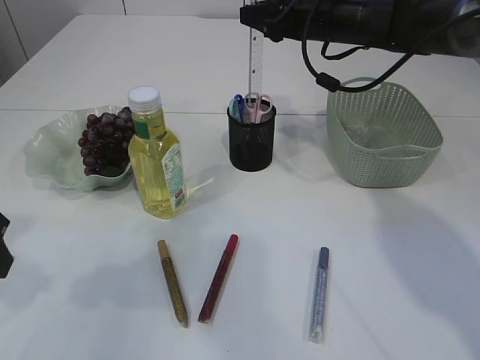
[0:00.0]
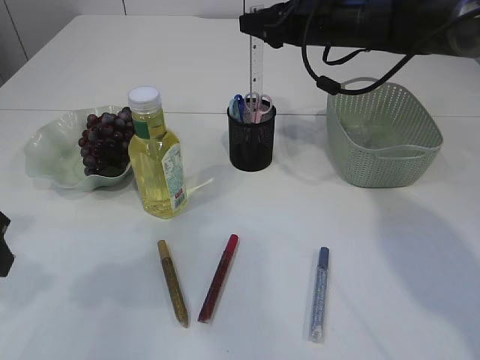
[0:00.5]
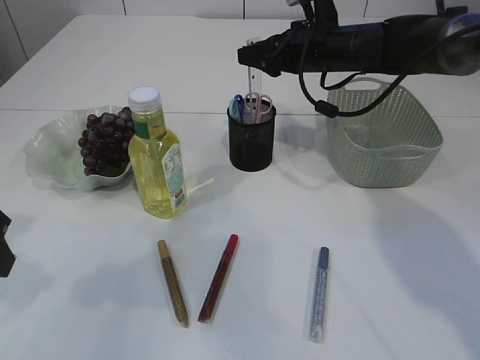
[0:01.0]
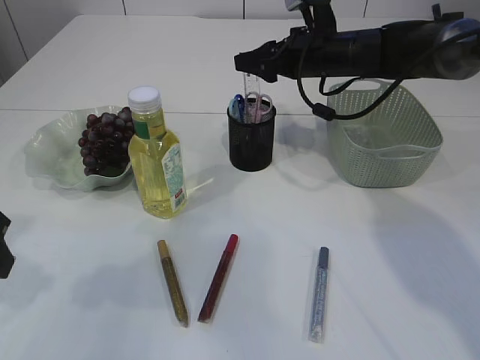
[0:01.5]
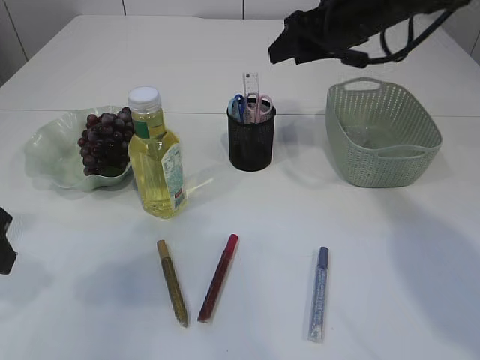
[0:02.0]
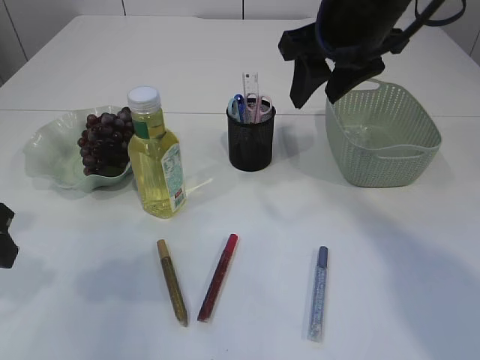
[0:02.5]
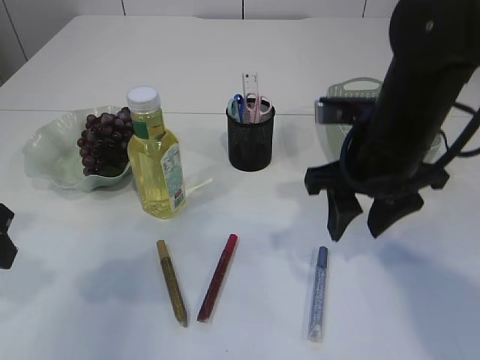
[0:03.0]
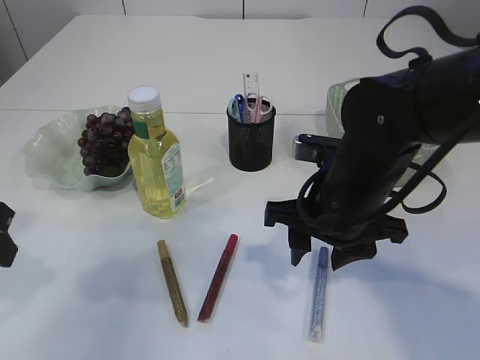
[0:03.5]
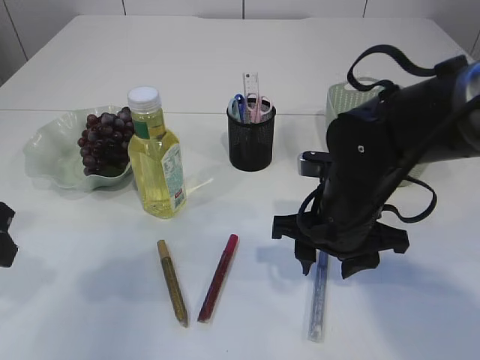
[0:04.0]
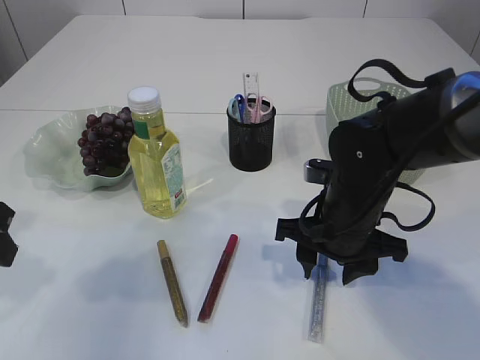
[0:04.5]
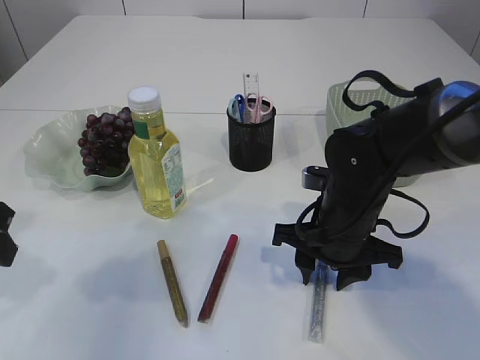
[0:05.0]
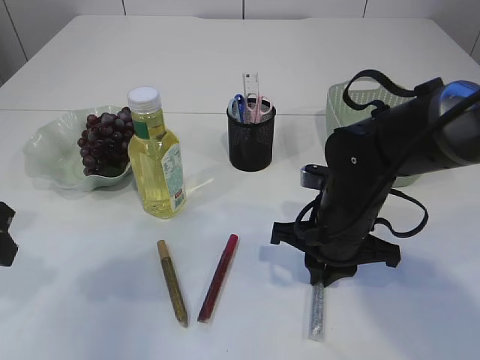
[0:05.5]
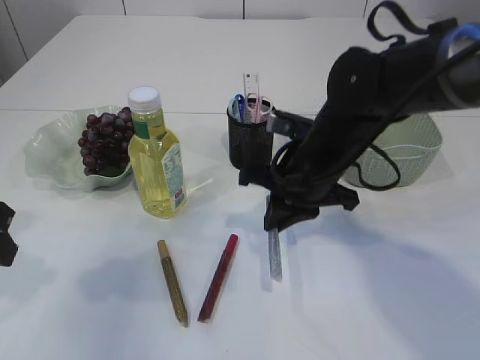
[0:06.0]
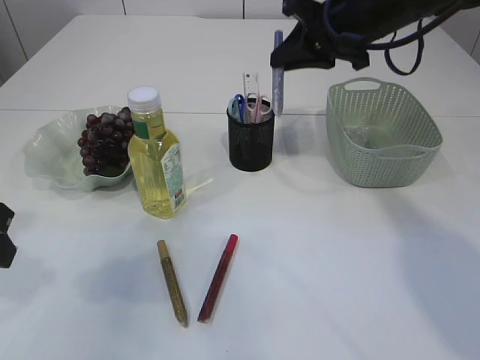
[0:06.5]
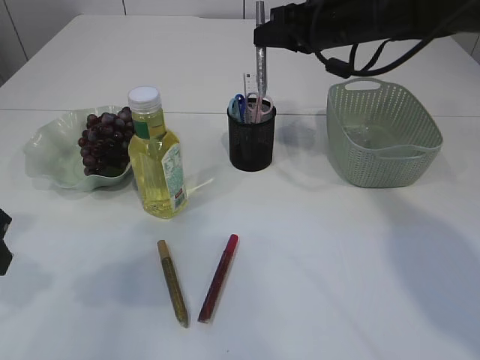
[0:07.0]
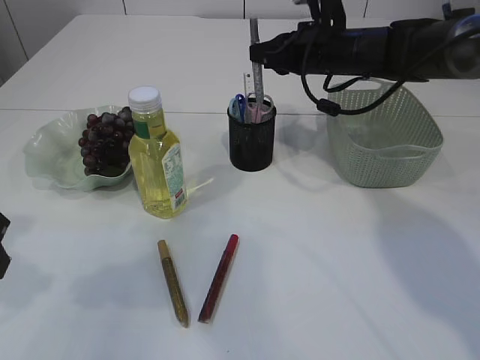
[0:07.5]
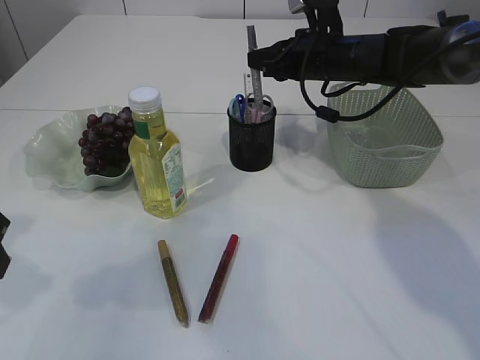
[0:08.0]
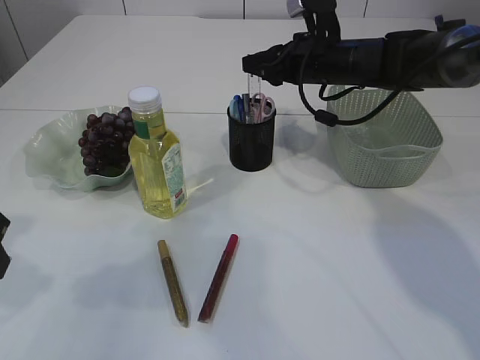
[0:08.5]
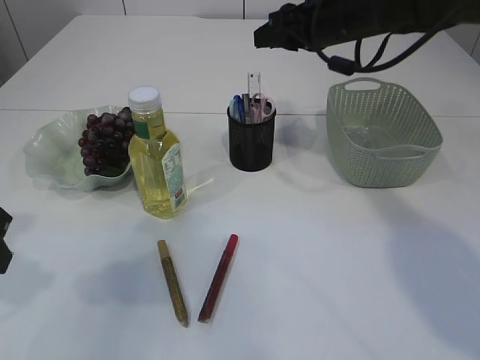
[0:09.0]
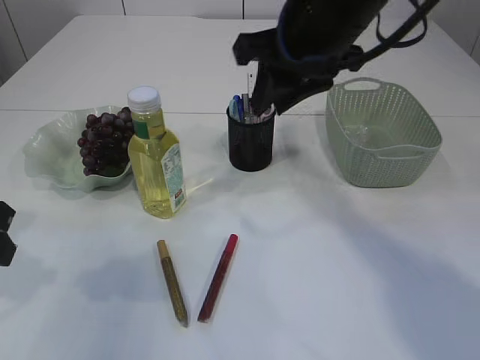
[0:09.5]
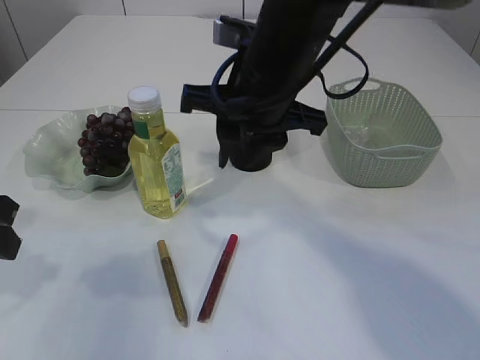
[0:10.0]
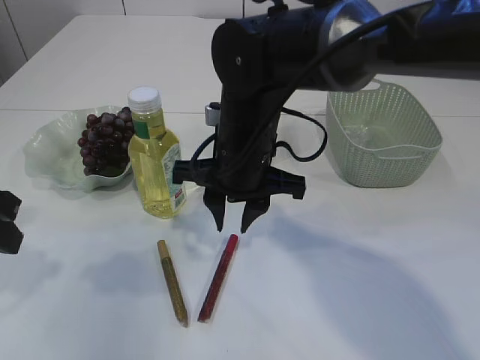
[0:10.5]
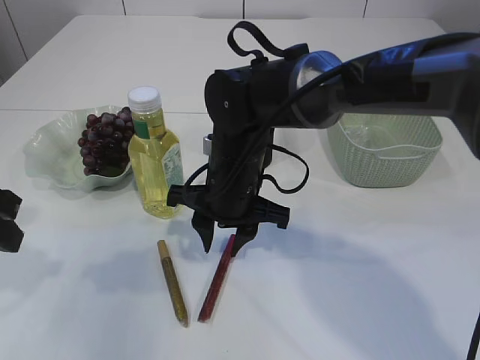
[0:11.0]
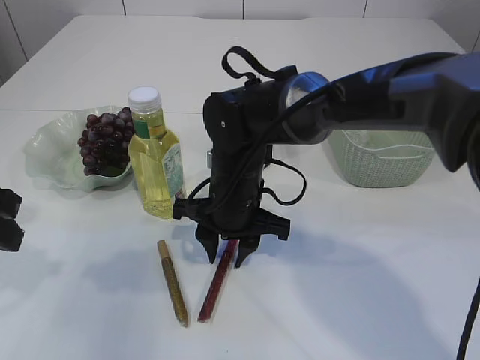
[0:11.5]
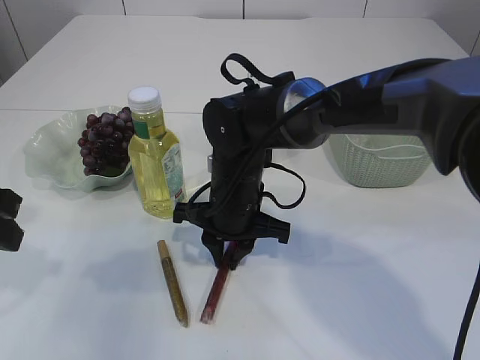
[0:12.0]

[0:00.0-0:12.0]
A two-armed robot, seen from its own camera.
Step, 0:02.0 to 0:05.5: pick up the silver glue.
Step, 0:06.0 to 0:08.5: place the silver glue into the pen holder.
0:02.0 to 0:04.0: The right gripper is displaced backward and downward by approximately 20 cm.
0:04.0 to 0:06.0: The right gripper changes place by some 5 cm, and closes up.
0:06.0 to 0:08.0: The right gripper is displaced forward by some 15 cm.
0:08.0 to 0:10.0: The right gripper travels backward, to the left and upward by about 20 cm.
0:10.0 to 0:12.0: The right gripper moves downward, approximately 15 cm.

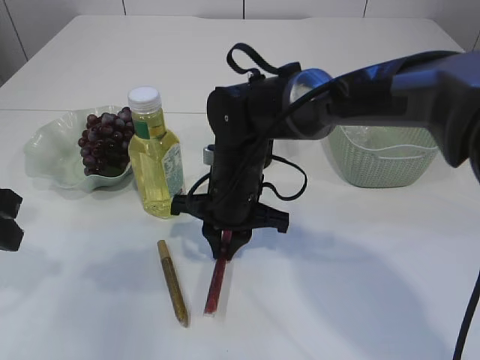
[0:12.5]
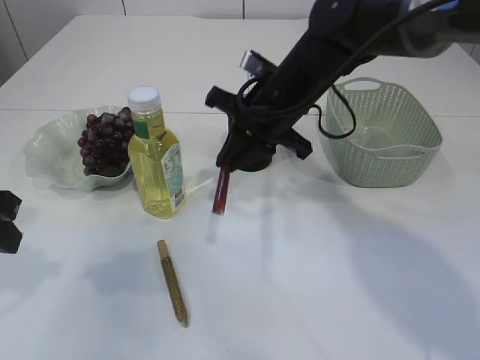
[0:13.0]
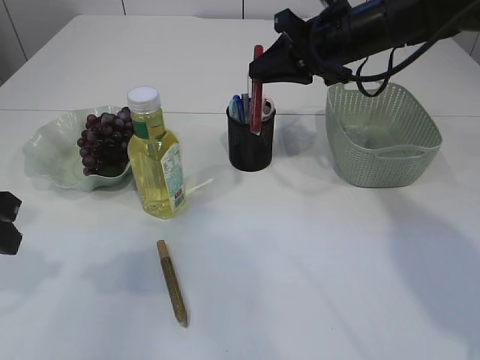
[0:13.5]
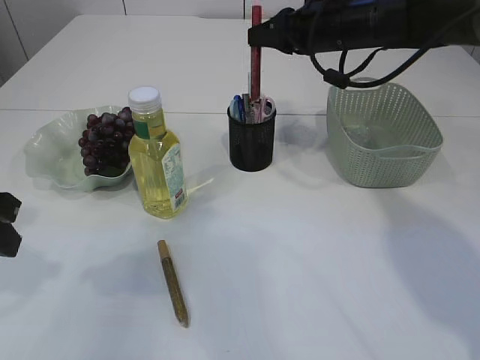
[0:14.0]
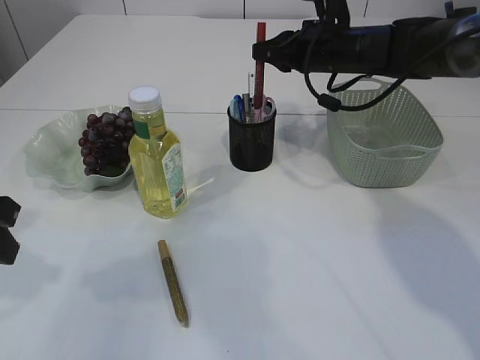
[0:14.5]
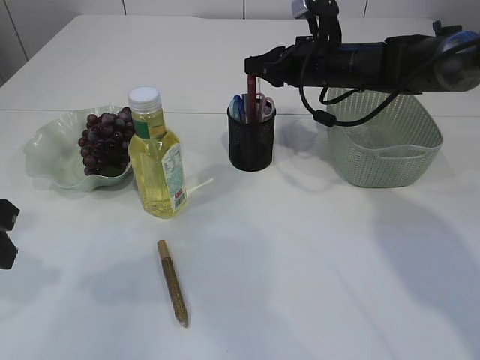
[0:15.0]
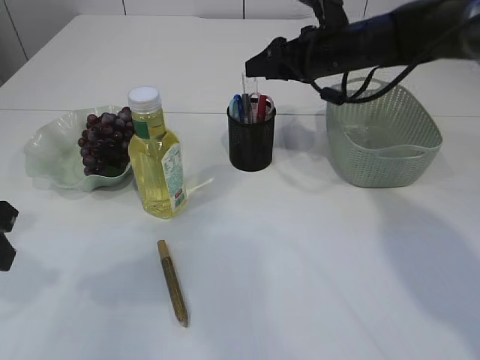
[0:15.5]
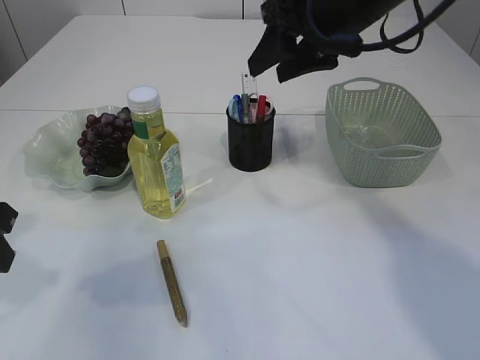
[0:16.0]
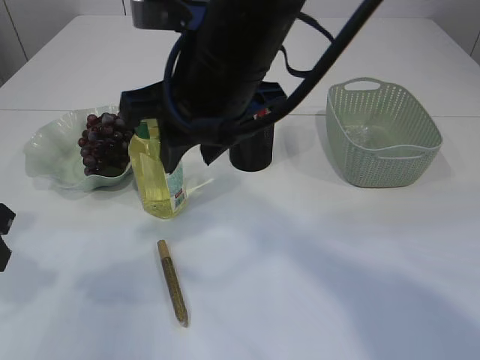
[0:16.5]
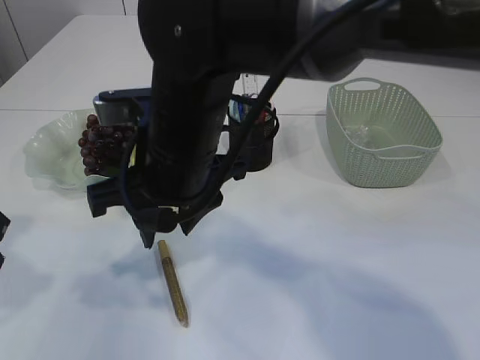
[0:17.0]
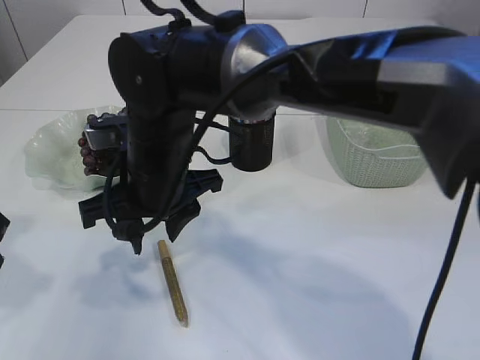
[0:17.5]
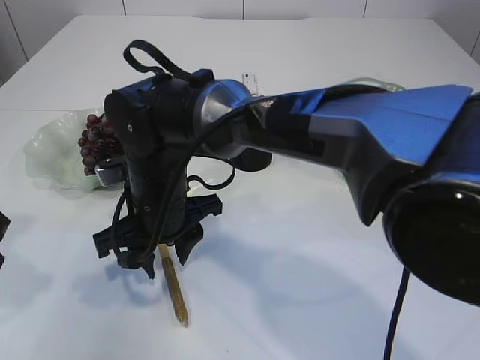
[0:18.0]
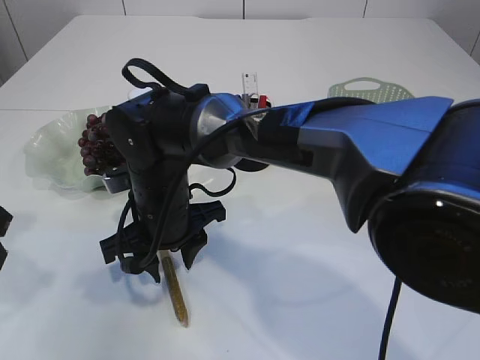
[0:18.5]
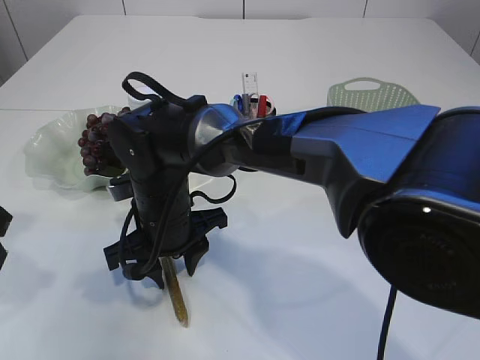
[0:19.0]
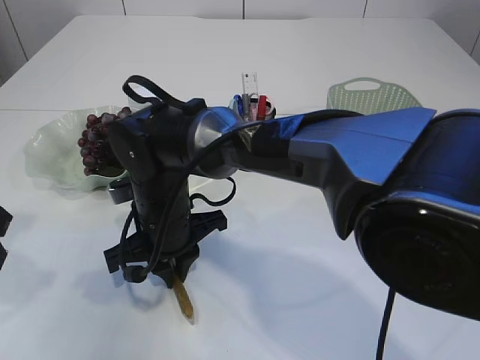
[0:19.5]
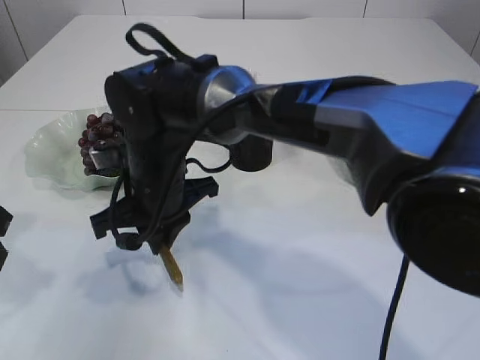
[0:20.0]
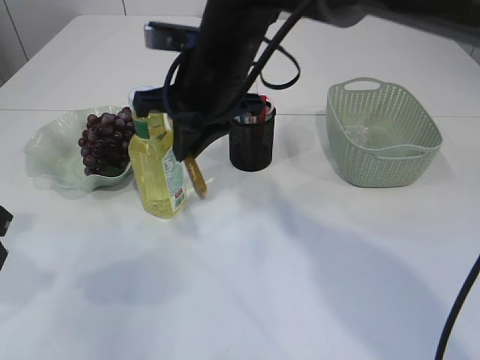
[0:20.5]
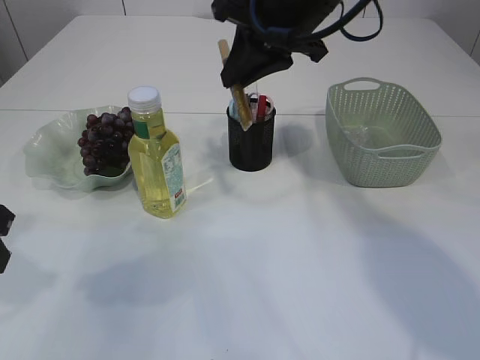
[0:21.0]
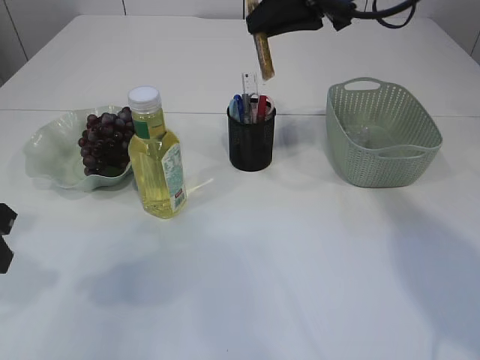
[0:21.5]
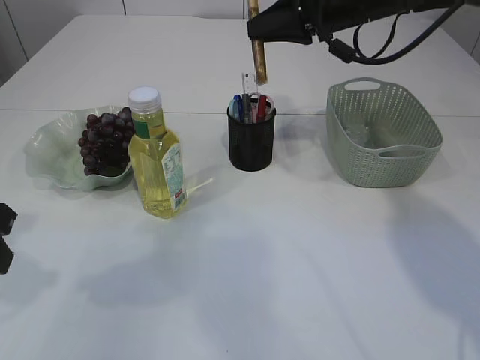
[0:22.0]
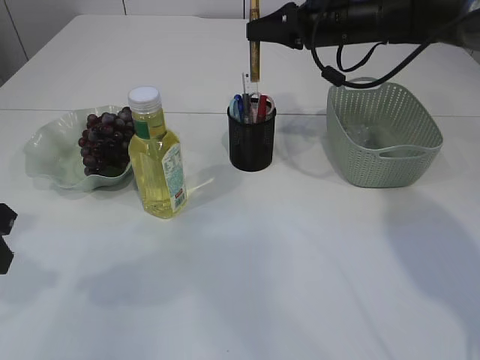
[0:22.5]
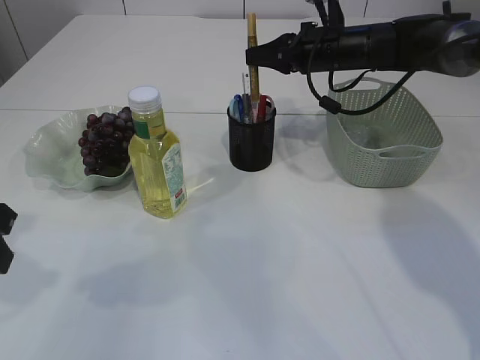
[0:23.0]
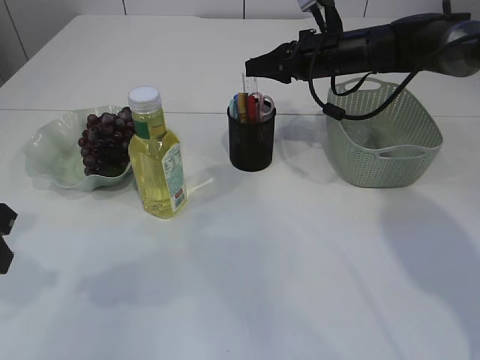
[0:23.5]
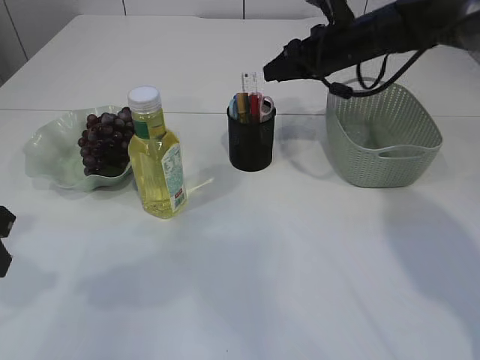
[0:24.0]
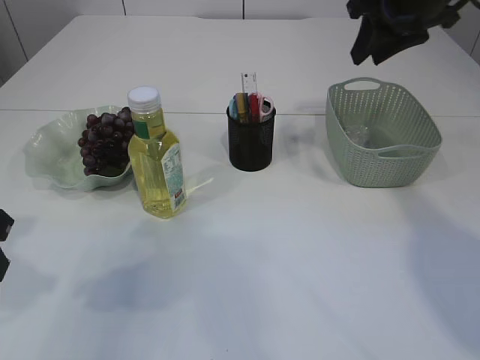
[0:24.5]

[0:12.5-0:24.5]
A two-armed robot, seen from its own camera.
Step, 0:13.0 to 0:15.5: place the red glue into the pen holder.
Step, 0:16.0 to 0:19.5: pick up the yellow glue.
Step, 0:20.0 to 0:24.0: place the yellow glue into the pen holder.
0:12.5 to 0:14.5: The right gripper travels to the right, forward and upward by about 25 cm.
0:14.5 to 0:16.5: The right gripper travels backward, to the left and upward by approximately 25 cm, and opens up.
0:16.5 to 0:18.5: The right gripper heads downward and to the left, covering some 20 cm.
0:18.5 to 0:20.5: The right gripper moves upward and to the right, approximately 15 cm, and closes up.
0:20.5 to 0:22.5: The right gripper goes approximately 20 cm to the right and forward.
0:22.5 to 0:24.5: The right gripper travels backward, upward and to the right by some 10 cm, and opens up.

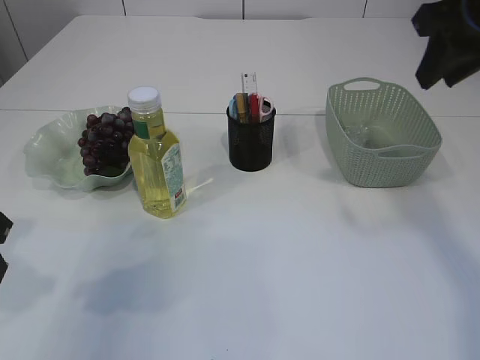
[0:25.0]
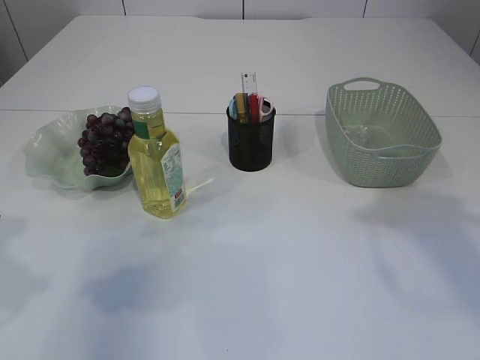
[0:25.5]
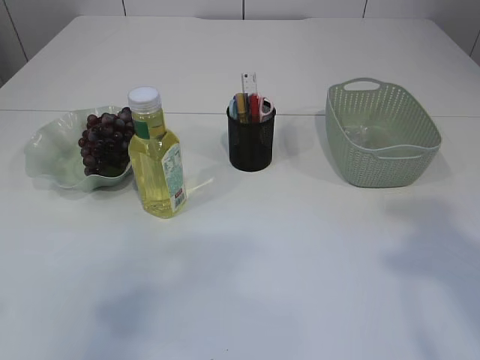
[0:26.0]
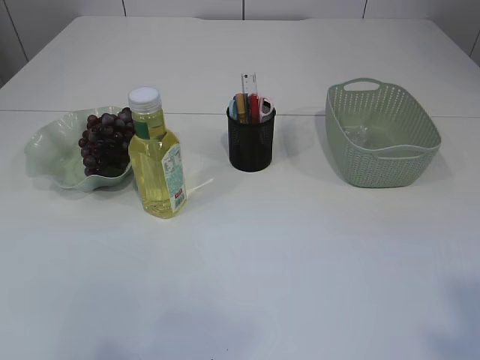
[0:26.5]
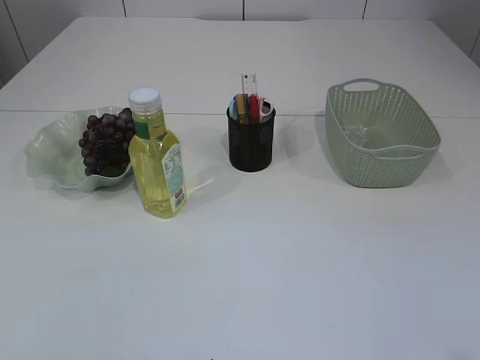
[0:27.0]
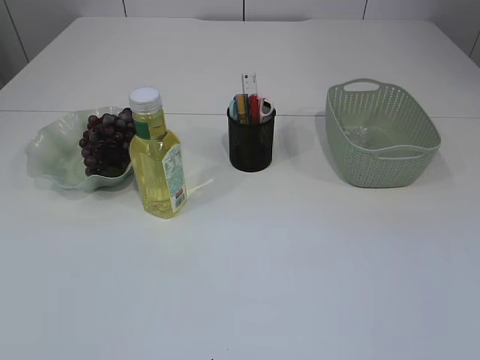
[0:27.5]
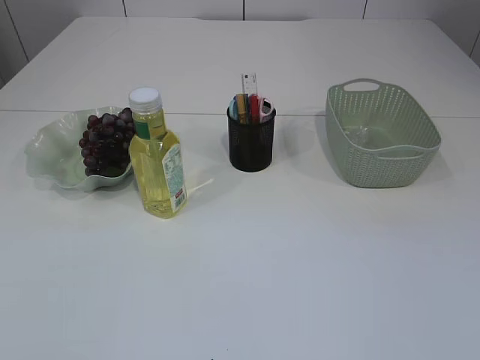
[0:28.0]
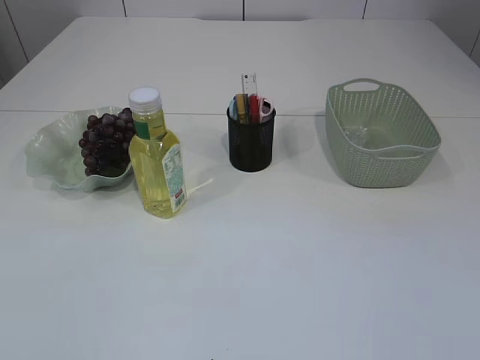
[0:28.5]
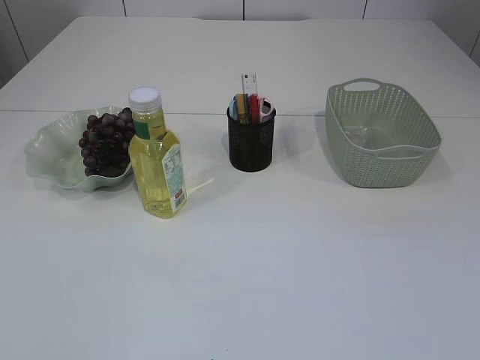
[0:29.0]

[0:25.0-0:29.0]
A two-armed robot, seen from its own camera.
0:25.0 to 0:27.0: The right gripper moves backward, approximately 40 cm. Meanwhile the left gripper goes approximately 25 cm backward and upward.
